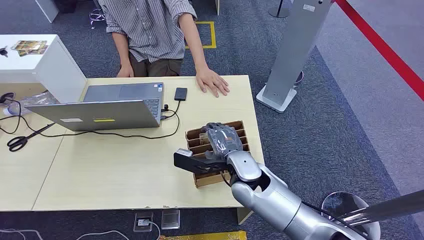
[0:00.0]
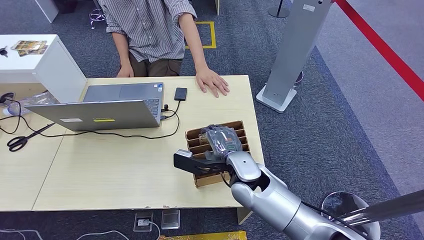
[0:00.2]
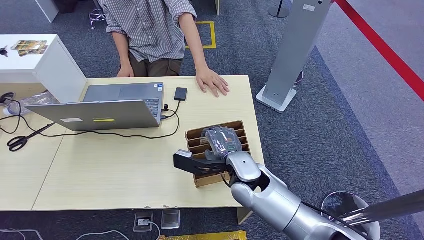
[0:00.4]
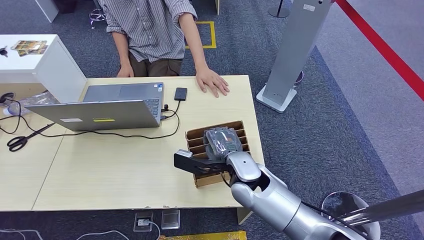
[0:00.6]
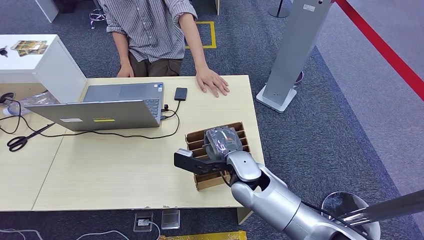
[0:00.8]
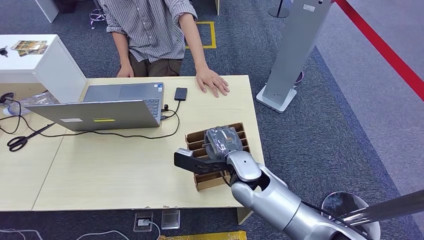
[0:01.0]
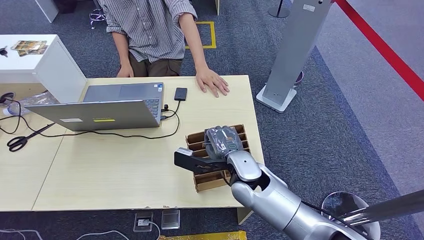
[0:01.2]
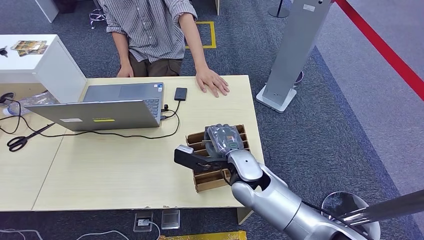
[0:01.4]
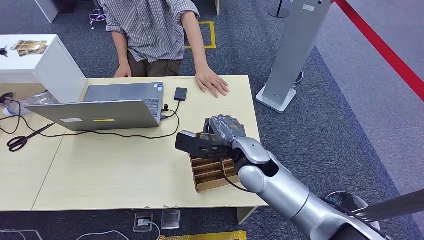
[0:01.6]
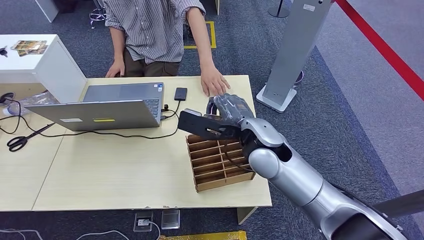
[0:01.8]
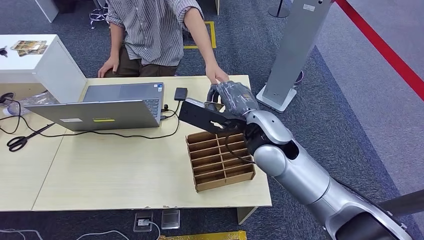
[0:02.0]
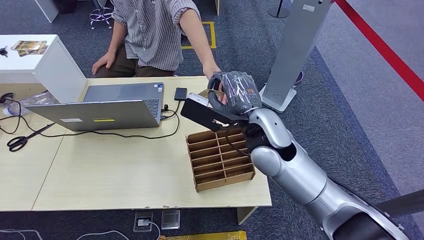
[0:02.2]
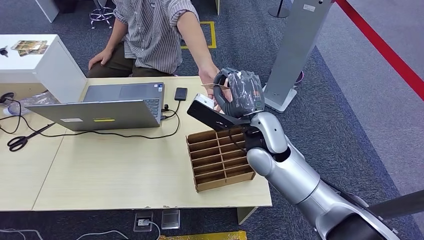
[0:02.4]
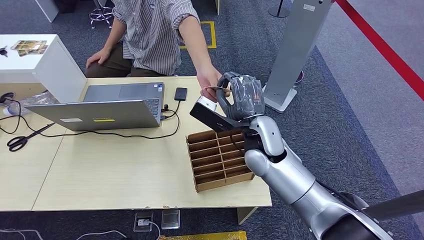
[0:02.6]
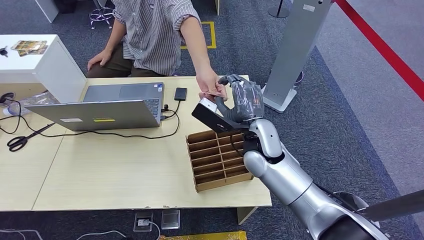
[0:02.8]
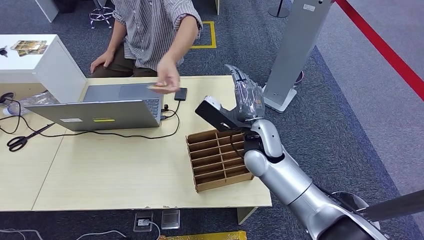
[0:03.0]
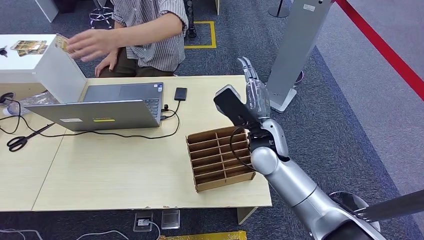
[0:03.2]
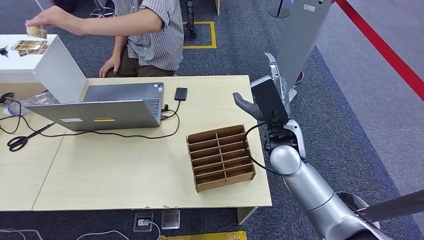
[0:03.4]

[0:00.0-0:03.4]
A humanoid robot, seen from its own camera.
Step, 0:00.0 to 0:01.8: Pick up the key card from the card box.
Step, 0:02.8 to 0:03.4: Hand the key card to the target.
0:01.6 to 0:03.4: The right hand shifts roughly 5 cm to the right.

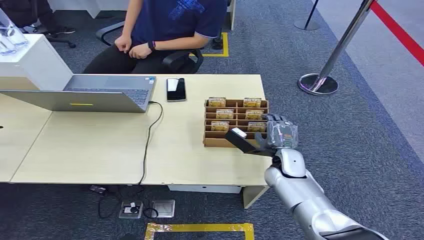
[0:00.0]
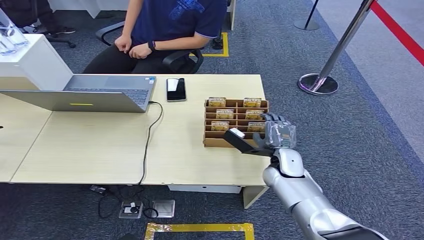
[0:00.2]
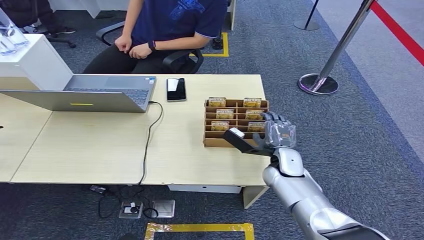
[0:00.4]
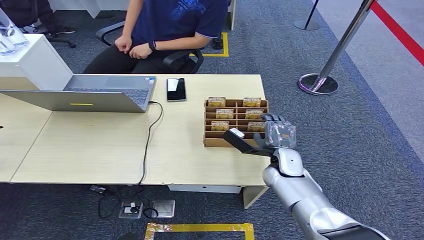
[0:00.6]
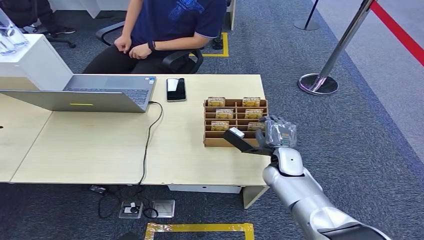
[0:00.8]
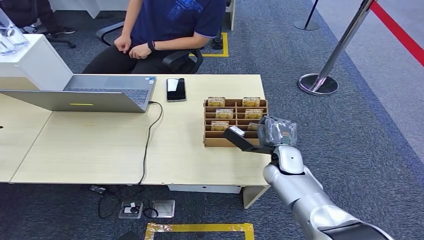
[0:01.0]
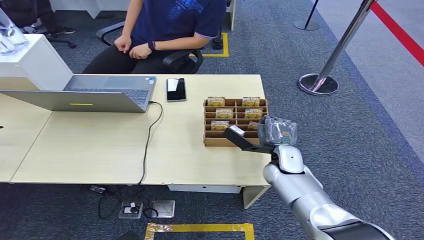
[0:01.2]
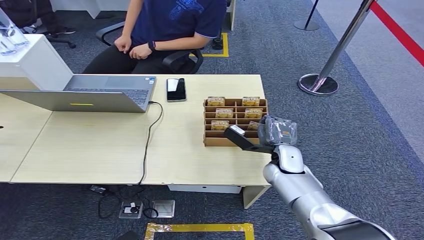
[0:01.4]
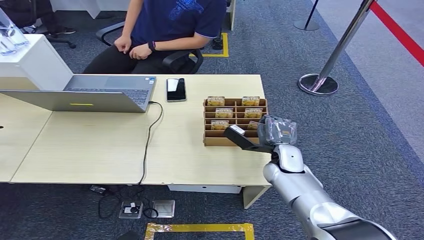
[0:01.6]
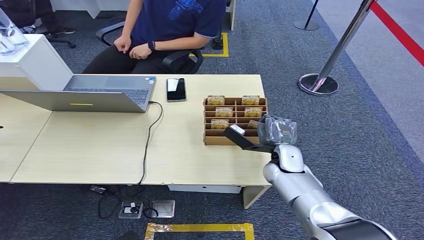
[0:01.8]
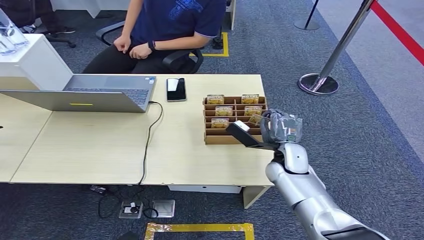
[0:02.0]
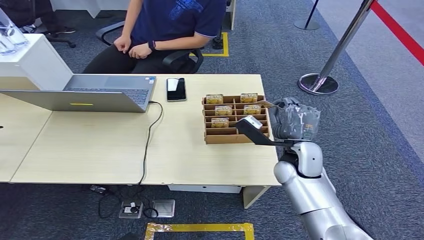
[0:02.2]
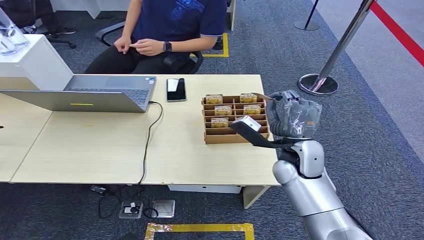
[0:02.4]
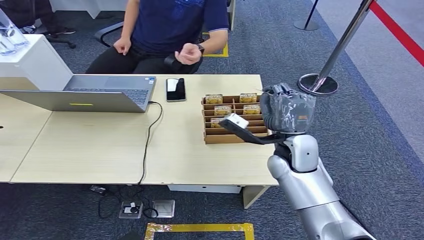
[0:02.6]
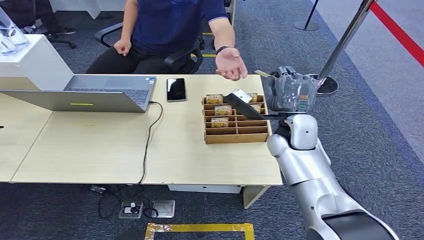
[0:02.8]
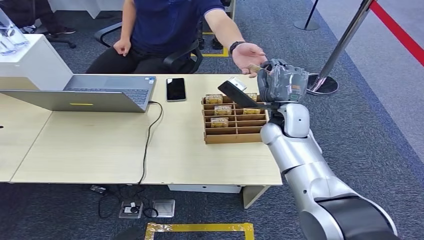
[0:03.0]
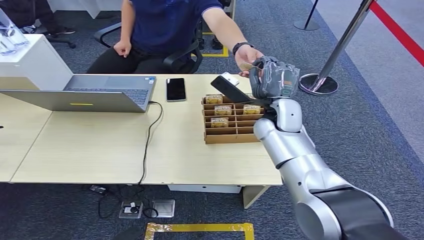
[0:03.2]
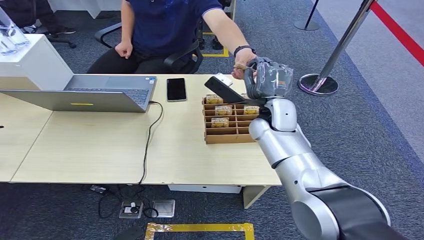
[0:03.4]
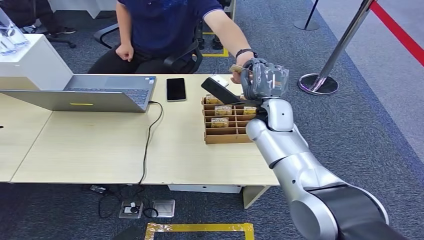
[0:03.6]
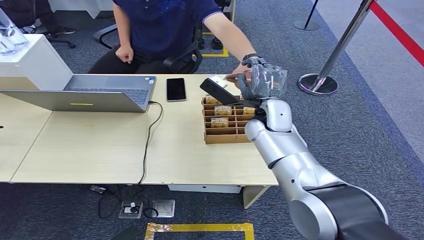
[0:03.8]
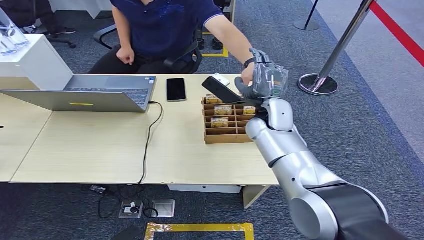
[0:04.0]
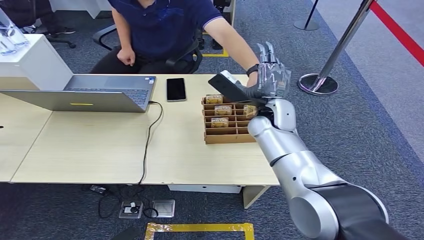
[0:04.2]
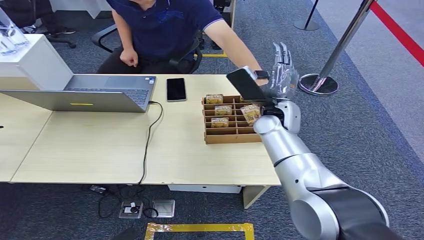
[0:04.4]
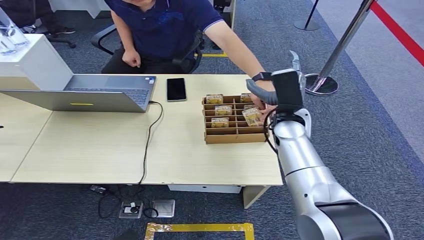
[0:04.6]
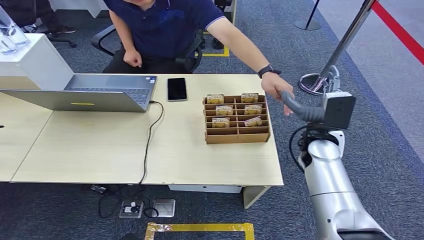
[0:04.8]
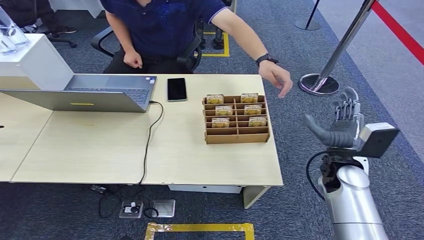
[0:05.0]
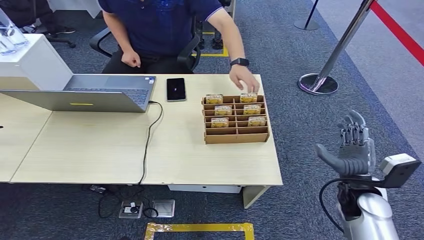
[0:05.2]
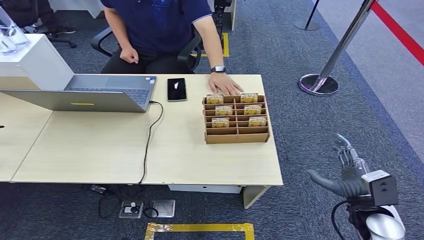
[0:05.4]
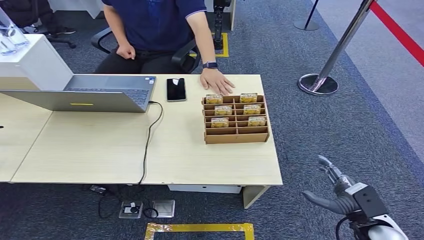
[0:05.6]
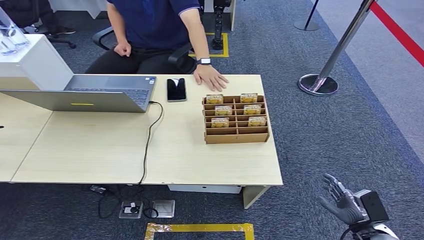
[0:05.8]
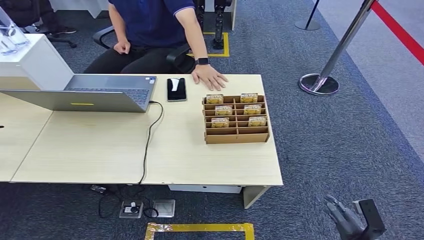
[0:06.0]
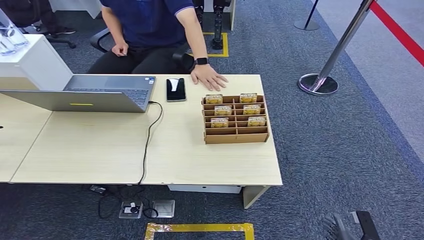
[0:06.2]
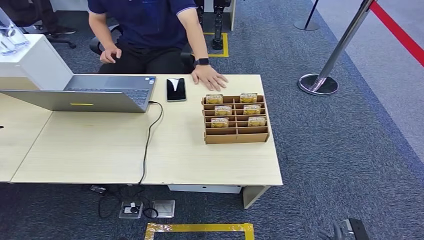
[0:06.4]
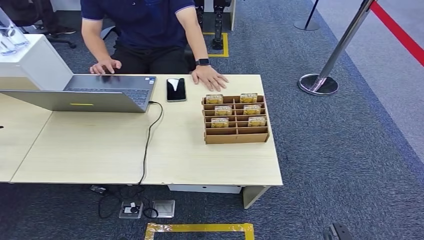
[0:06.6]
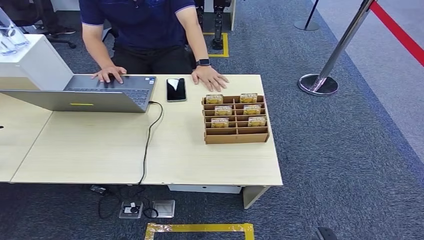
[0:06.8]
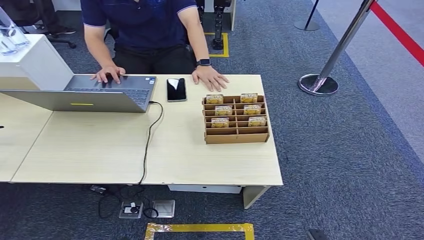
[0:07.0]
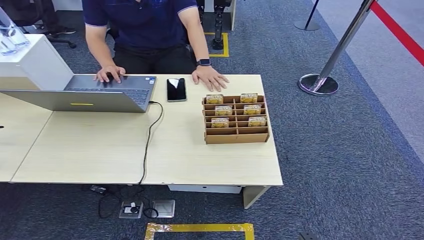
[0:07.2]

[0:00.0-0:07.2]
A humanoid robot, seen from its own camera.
Step, 0:00.0 to 0:02.2: Pick up the key card from the card box.
Step, 0:02.4 to 0:07.2: Hand the key card to the target.
0:01.4 to 0:02.8: The right hand is displaced upward by about 15 cm.
0:02.8 to 0:04.4: The right hand ends up approximately 5 cm from where it was.
0:04.4 to 0:05.8: The right hand heads backward, downward and to the right, covering approximately 40 cm.
0:05.8 to 0:07.2: The right hand heads backward, downward and to the left, covering some 15 cm.
